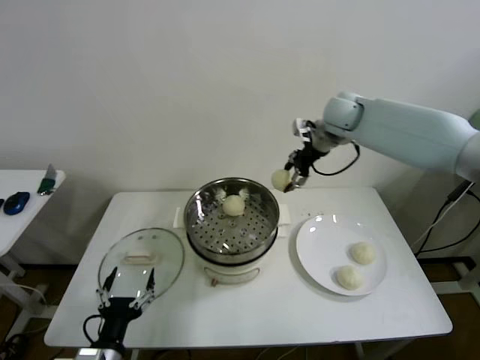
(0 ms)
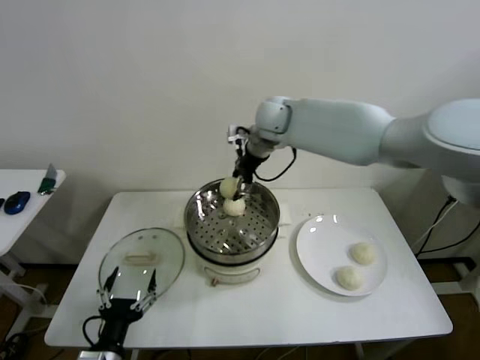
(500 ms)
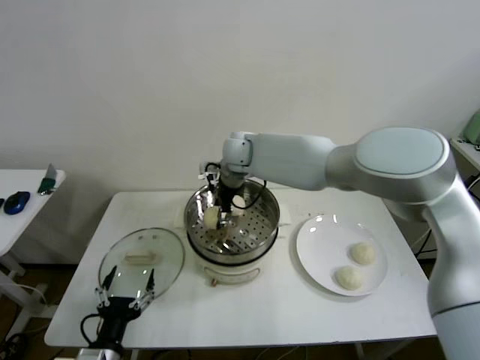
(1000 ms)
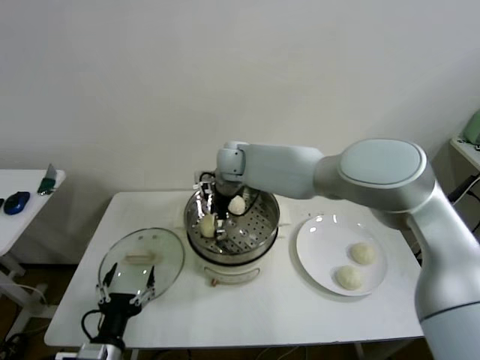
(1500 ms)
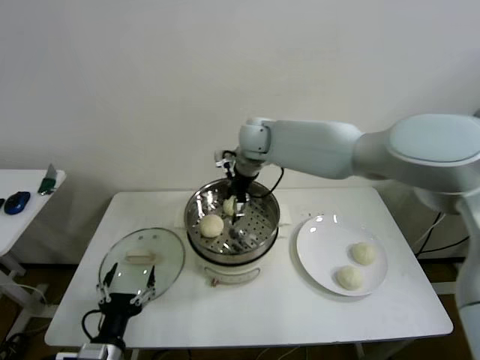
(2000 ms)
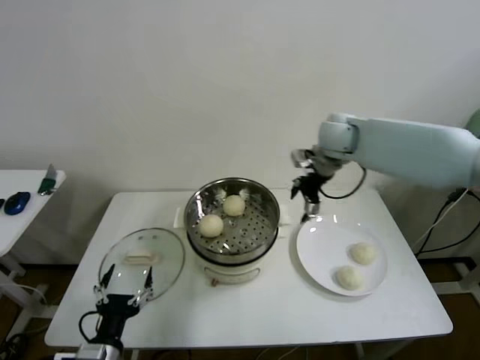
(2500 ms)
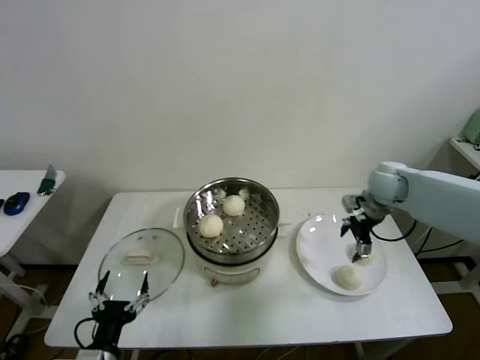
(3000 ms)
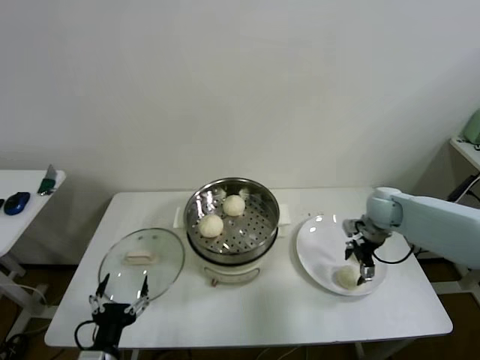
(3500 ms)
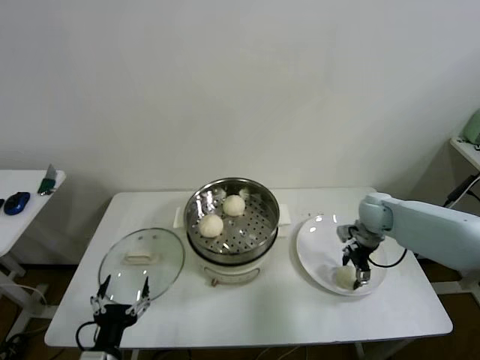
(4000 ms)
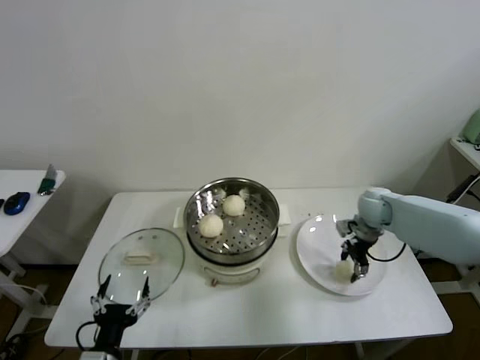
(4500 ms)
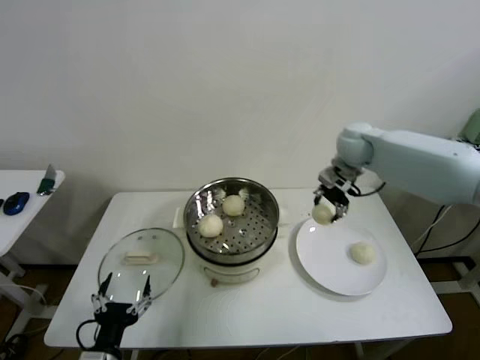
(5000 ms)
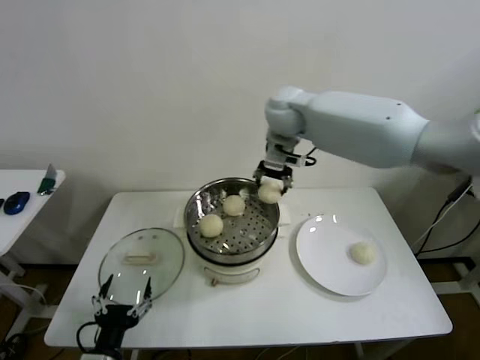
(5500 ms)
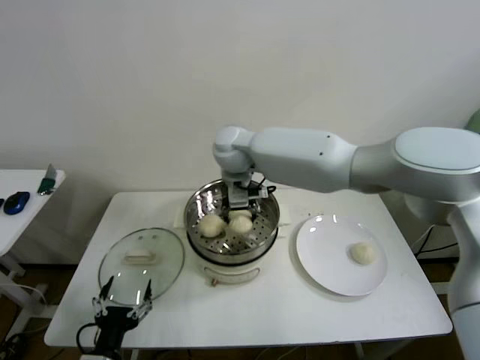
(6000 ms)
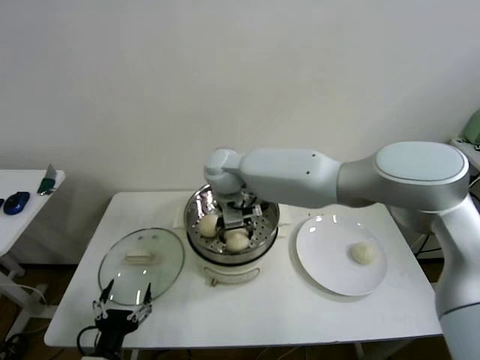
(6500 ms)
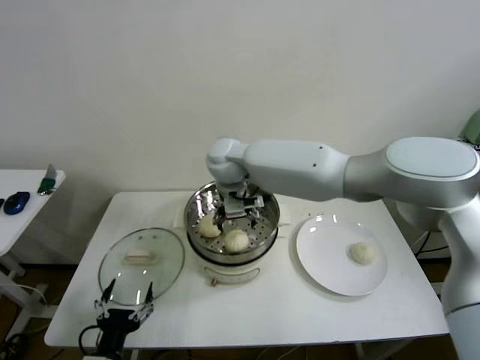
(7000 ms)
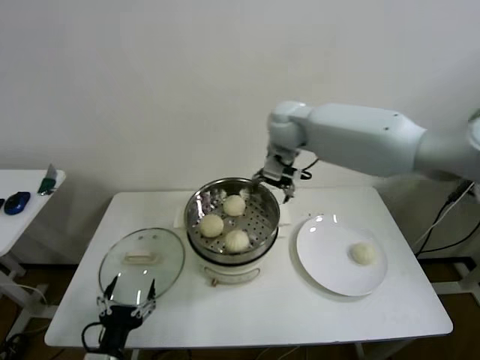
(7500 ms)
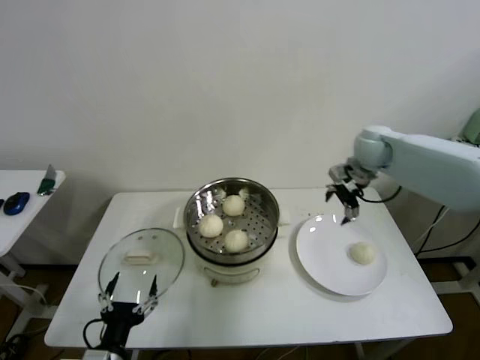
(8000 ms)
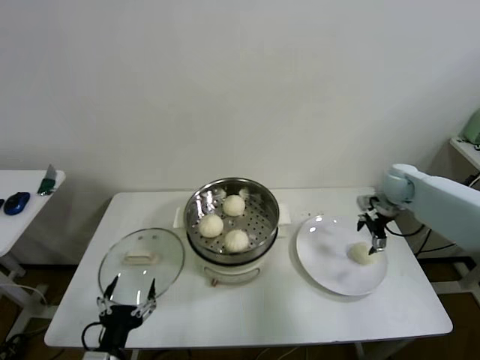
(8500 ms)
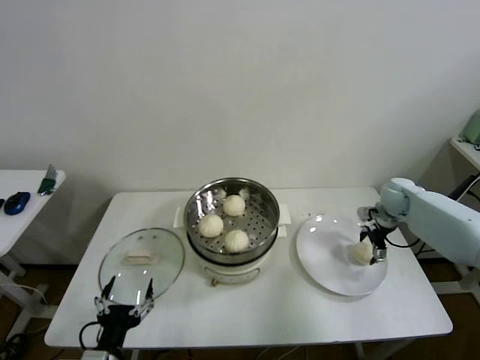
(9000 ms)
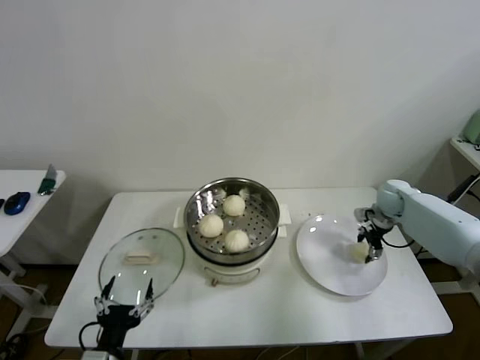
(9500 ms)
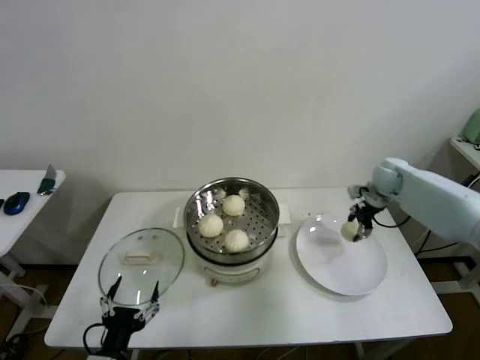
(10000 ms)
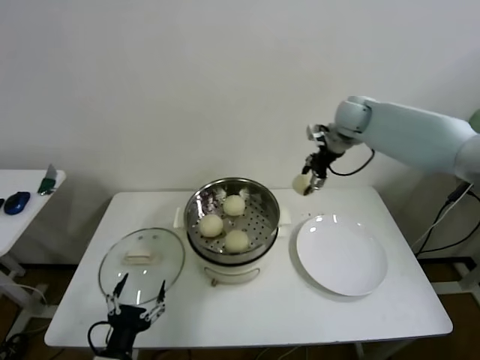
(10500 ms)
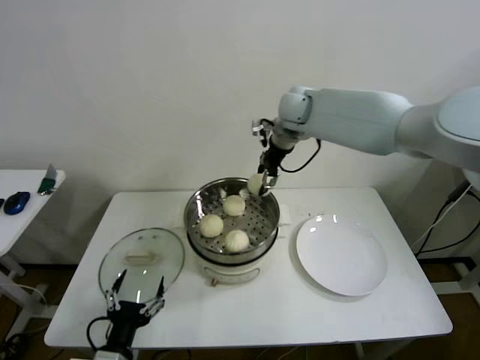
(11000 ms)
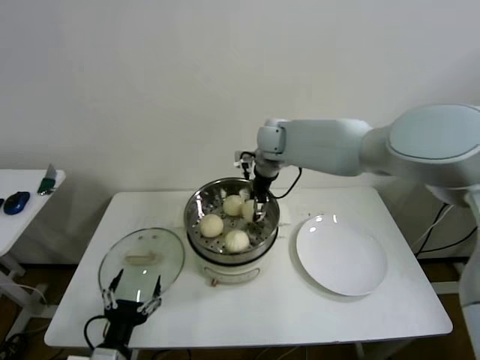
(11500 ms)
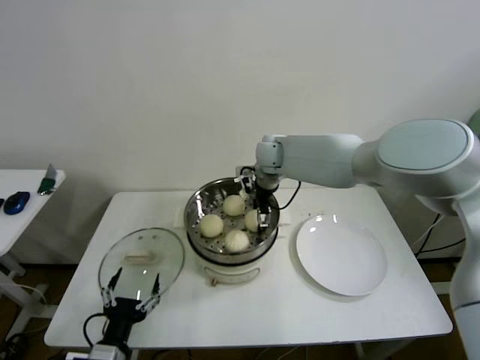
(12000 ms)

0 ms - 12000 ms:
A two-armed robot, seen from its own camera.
Step, 2000 ms - 4000 ms: Grasp the baozi in the plate with right gripper.
Step, 4500 ms - 6500 ms: Place the baozi on the steamer with right gripper.
Step, 7000 ms - 9500 ms: Grasp the baozi in the plate with right gripper.
0 ms - 2000 ms: The right gripper goes some 20 cm to the left, and opens.
2000 ms - 4000 ms: The right gripper heads to the right and downward, covering about 35 cm, and closes up.
4000 ms - 6000 ms: The right gripper goes roughly 40 cm to the left and upward.
6000 ms - 8000 ms: The right gripper is displaced to the right by about 35 cm, and opens.
8000 ms - 10000 ms: The right gripper is displaced downward and to the right by roughly 15 cm, and closes.
10000 ms - 12000 ms: The right gripper is displaced to the left by some 30 cm, and opens.

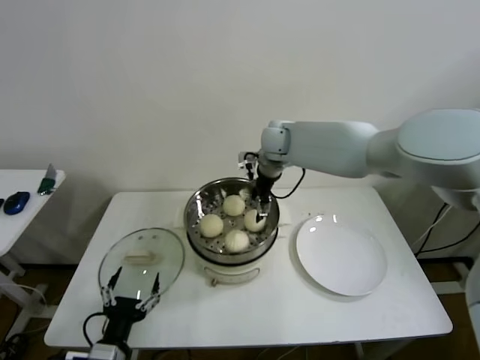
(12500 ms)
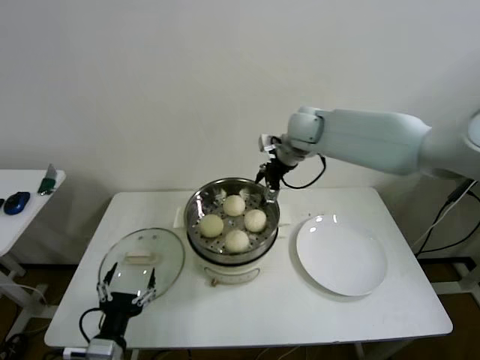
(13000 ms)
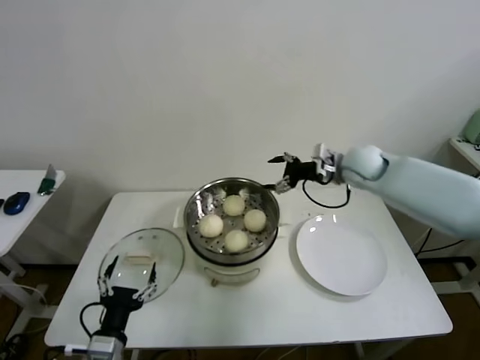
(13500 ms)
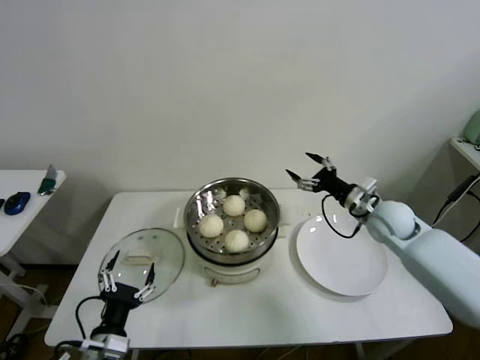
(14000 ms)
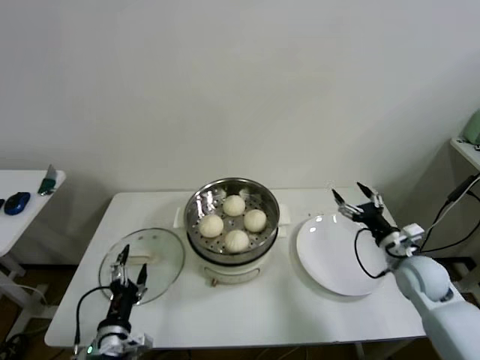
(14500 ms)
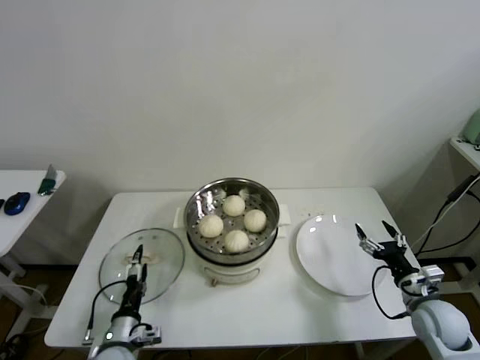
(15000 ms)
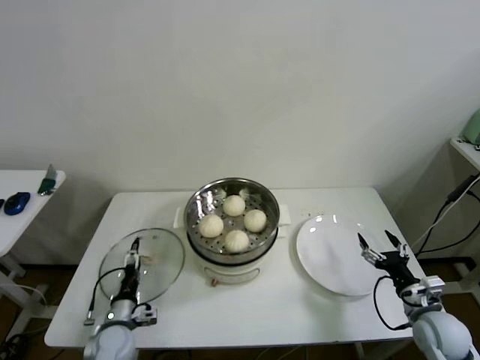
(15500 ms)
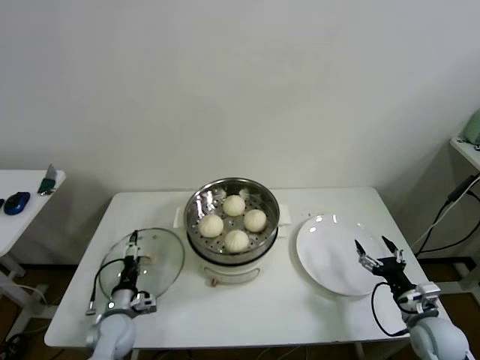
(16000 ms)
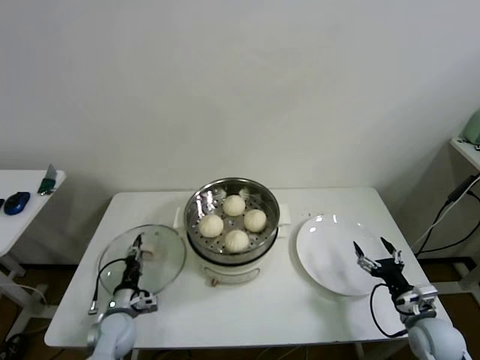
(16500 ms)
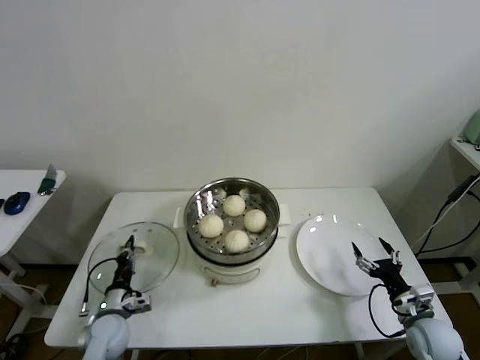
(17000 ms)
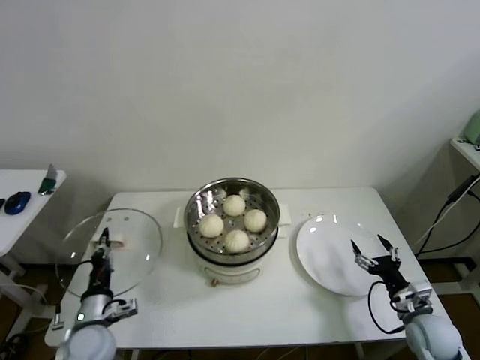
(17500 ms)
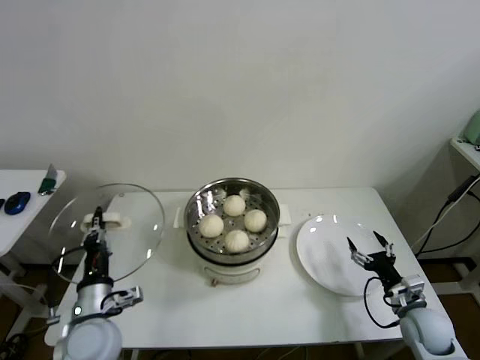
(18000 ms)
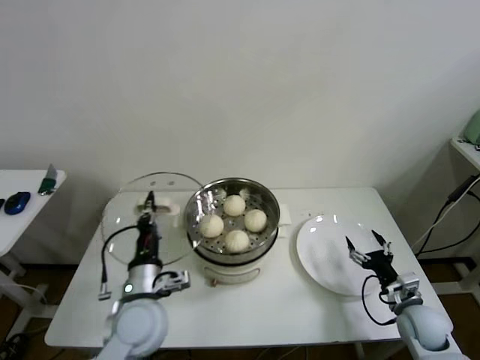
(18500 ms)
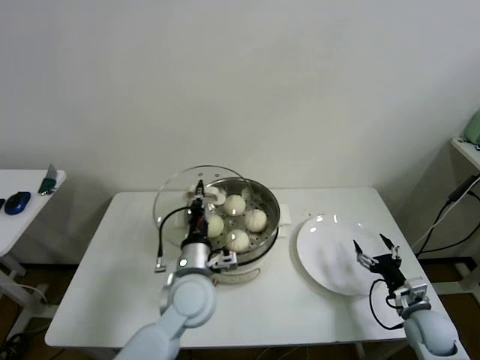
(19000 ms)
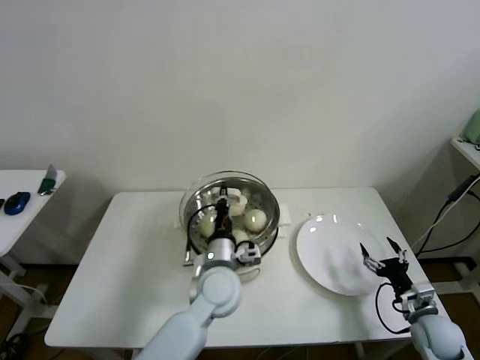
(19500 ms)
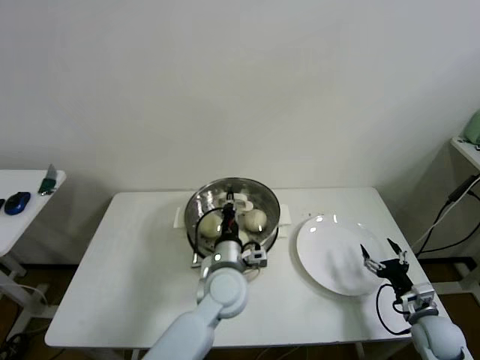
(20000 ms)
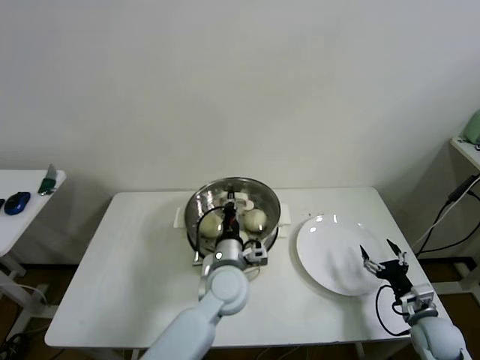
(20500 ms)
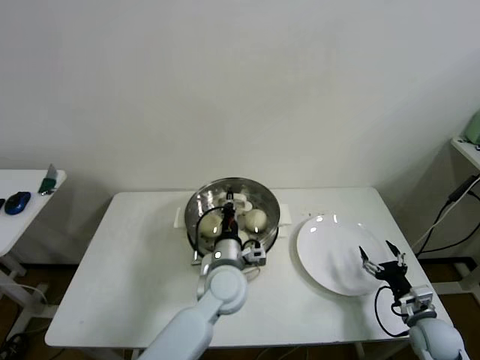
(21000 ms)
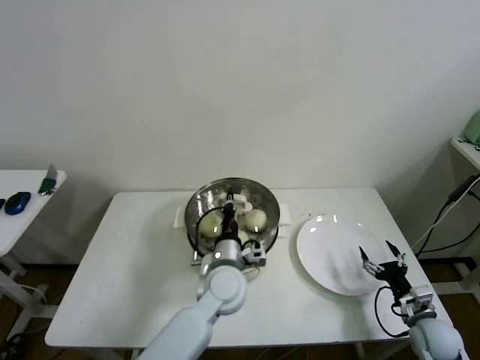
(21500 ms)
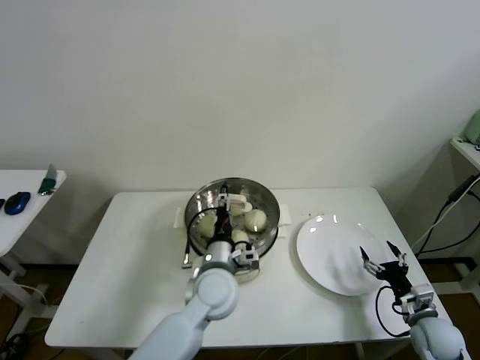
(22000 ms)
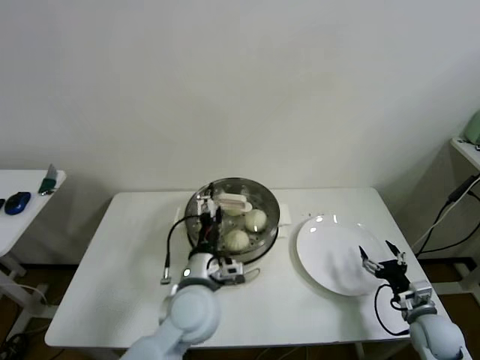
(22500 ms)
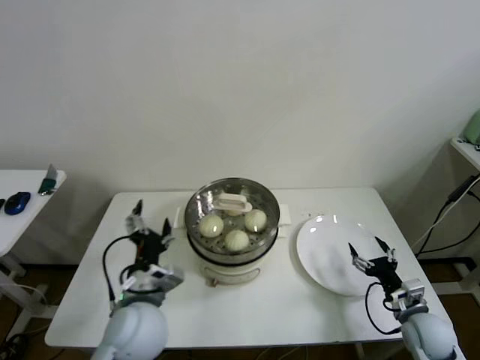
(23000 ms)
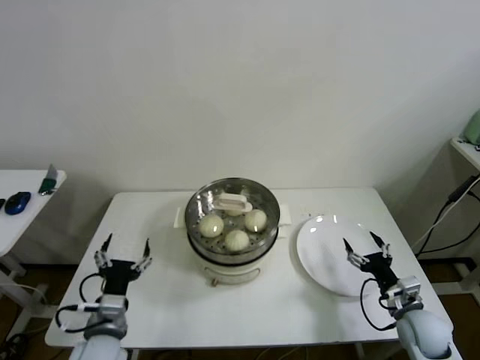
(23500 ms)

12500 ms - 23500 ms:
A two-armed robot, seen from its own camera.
Step, 12500 ms - 16500 ms: Grasp the pot lid with left gripper.
Step, 17000 ms - 21500 ms: Place the pot lid on the steamer with left gripper.
12500 ms - 14500 ms: The right gripper goes about 40 cm to the right, backward and downward; the left gripper changes place by approximately 5 cm.
14500 ms - 16000 ms: The right gripper heads backward and downward, covering some 15 cm. The left gripper is displaced forward and downward by roughly 15 cm.
16000 ms - 18000 ms: The left gripper goes approximately 15 cm upward, and closes.
18000 ms - 20000 ms: The left gripper travels to the right and forward by roughly 25 cm.
20000 ms - 21500 ms: The two grippers keep their place.
21500 ms - 23500 ms: The left gripper moves to the left and backward, some 25 cm, and opens, while the right gripper ends up about 5 cm from where it was.

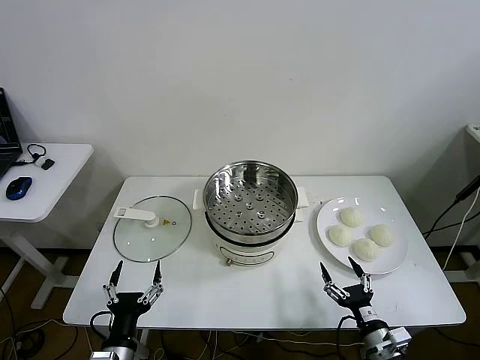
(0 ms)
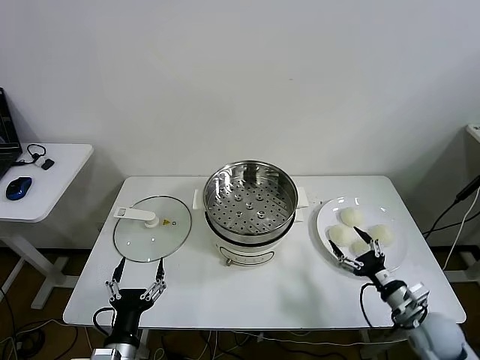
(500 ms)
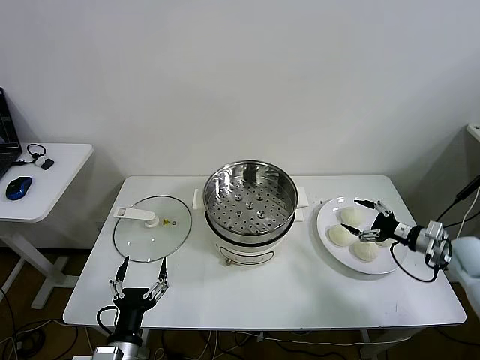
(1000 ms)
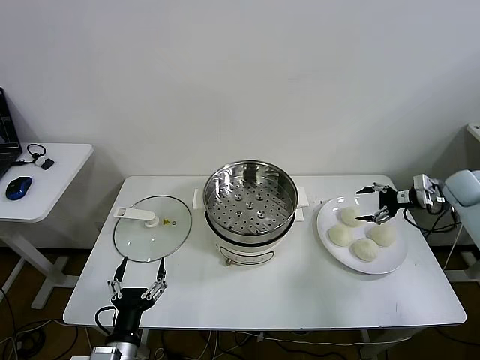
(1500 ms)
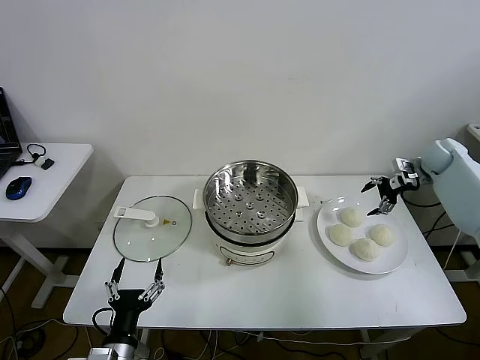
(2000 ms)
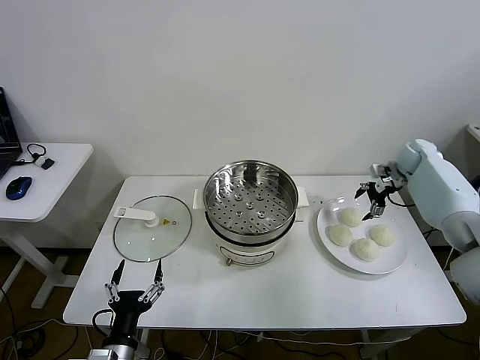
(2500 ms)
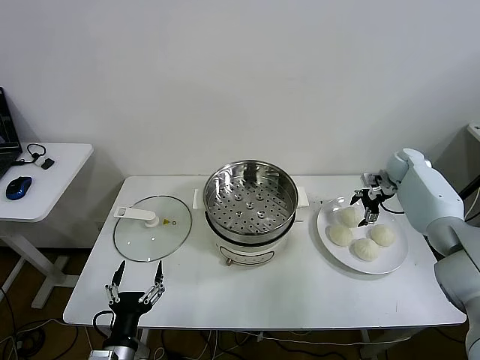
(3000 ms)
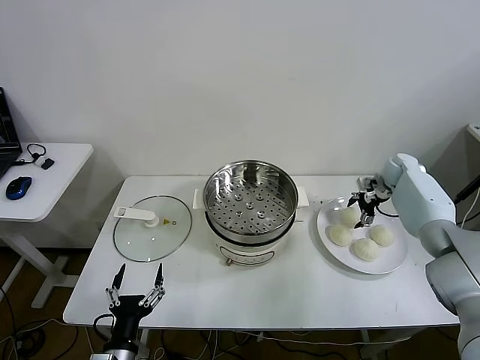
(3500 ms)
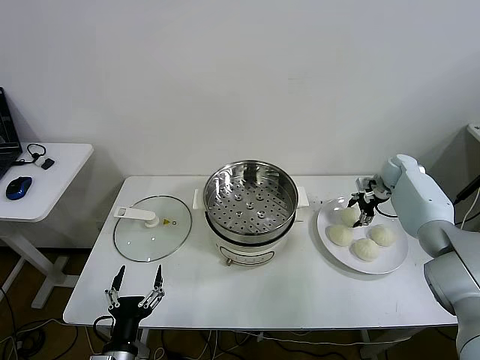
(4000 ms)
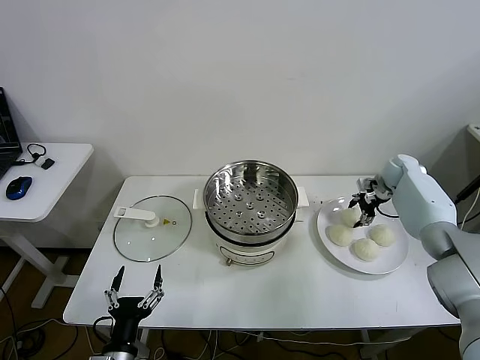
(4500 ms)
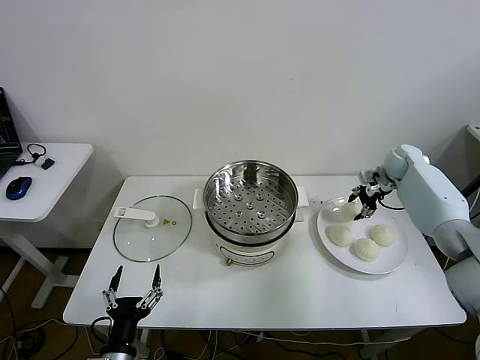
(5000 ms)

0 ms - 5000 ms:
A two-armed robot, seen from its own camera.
Step, 0 ms - 4000 ms: Grasp the baozi in the plate with right gripper.
2500 ms - 5000 ms: The right gripper closes.
